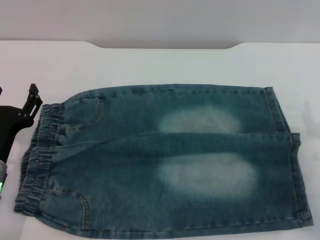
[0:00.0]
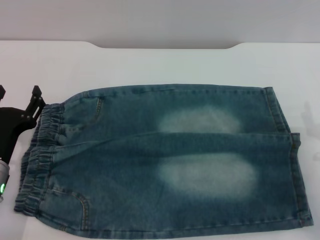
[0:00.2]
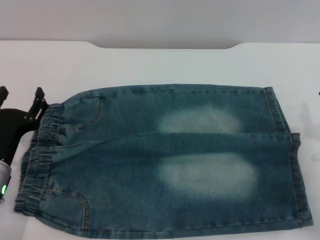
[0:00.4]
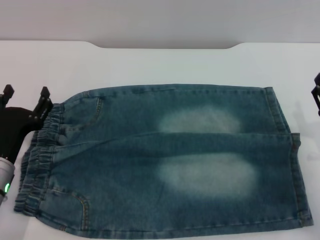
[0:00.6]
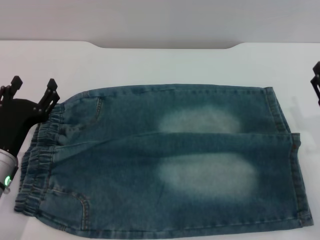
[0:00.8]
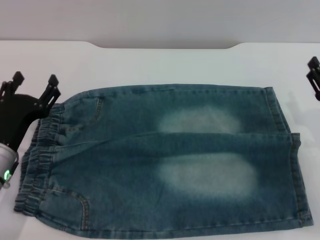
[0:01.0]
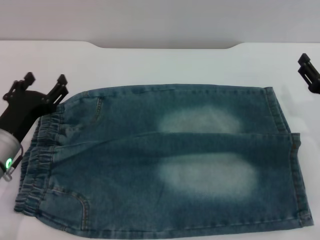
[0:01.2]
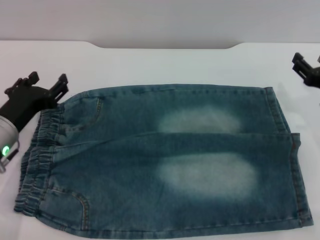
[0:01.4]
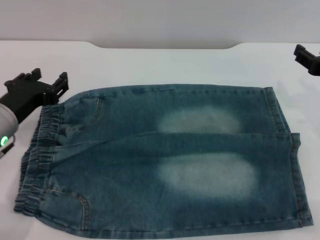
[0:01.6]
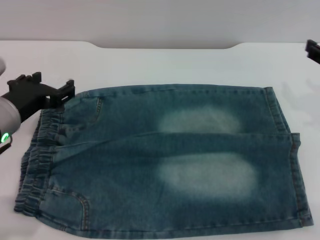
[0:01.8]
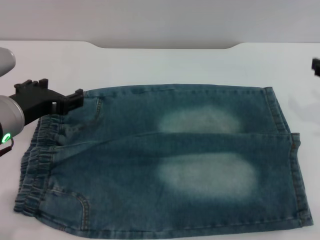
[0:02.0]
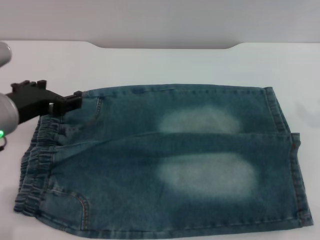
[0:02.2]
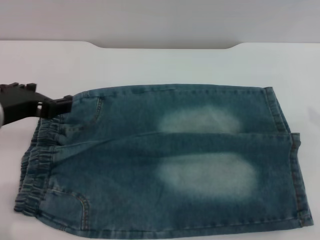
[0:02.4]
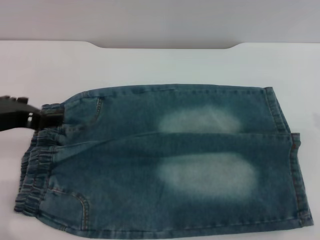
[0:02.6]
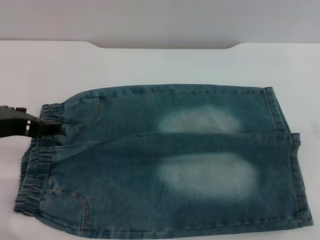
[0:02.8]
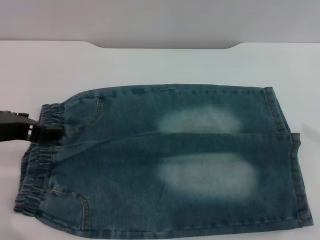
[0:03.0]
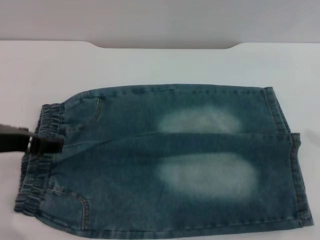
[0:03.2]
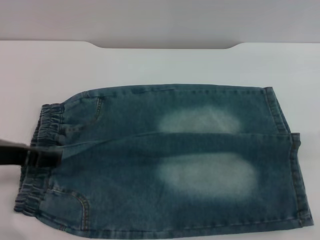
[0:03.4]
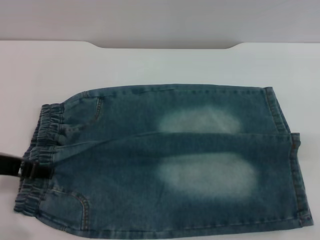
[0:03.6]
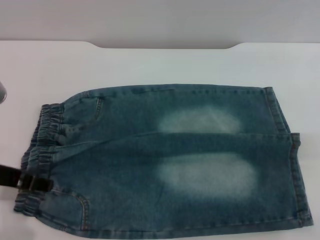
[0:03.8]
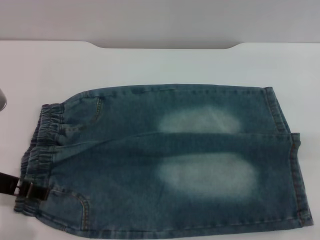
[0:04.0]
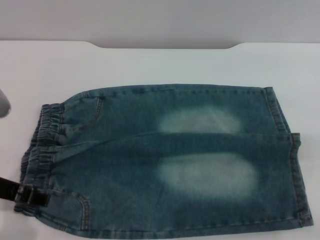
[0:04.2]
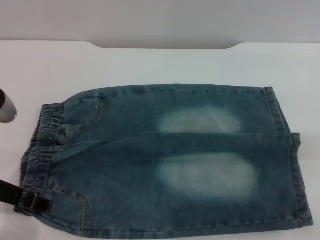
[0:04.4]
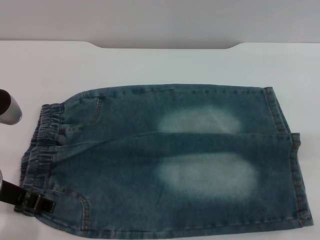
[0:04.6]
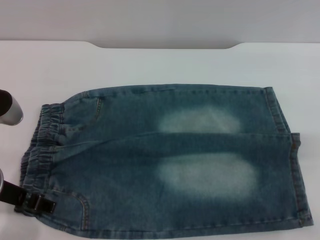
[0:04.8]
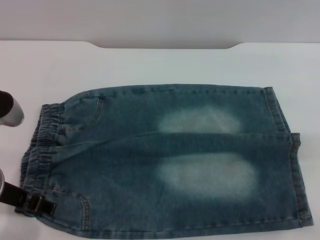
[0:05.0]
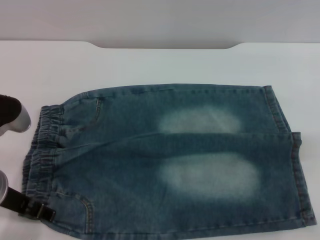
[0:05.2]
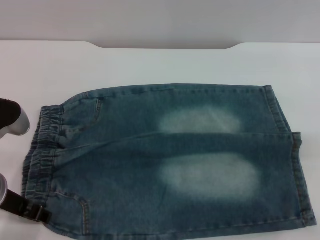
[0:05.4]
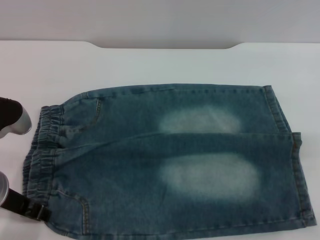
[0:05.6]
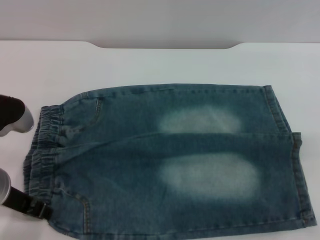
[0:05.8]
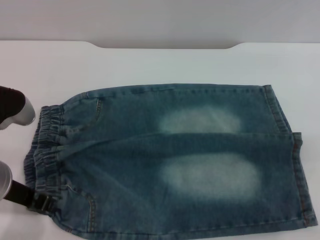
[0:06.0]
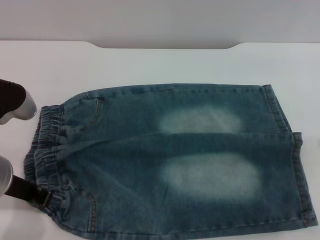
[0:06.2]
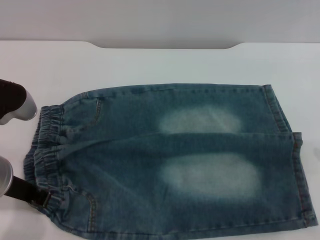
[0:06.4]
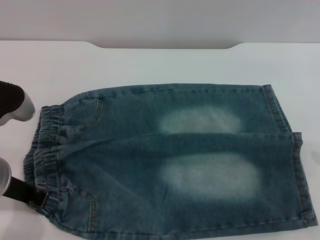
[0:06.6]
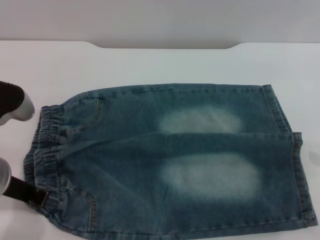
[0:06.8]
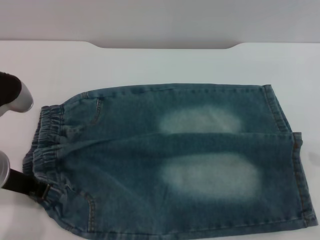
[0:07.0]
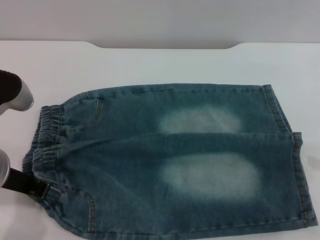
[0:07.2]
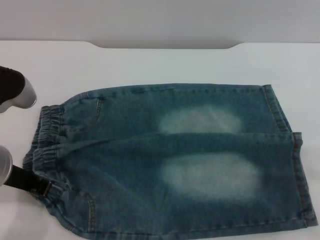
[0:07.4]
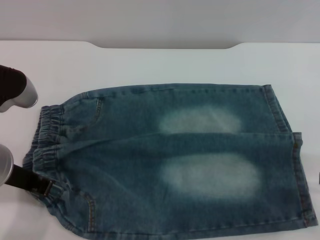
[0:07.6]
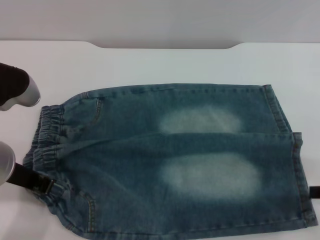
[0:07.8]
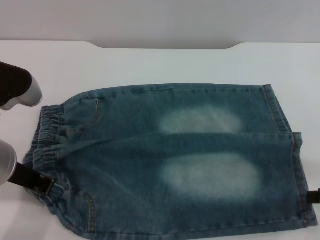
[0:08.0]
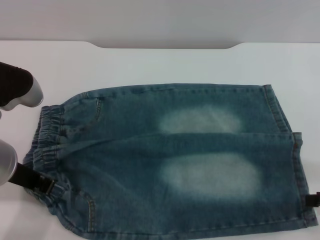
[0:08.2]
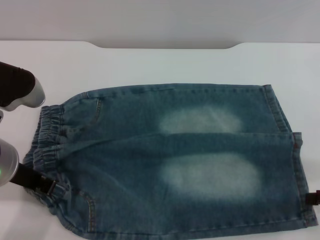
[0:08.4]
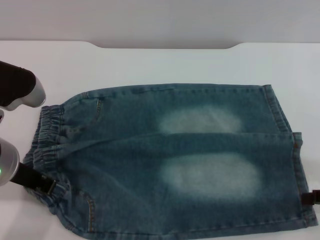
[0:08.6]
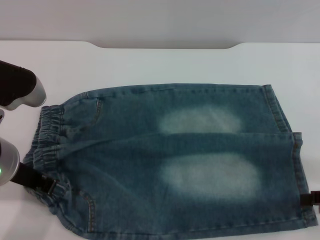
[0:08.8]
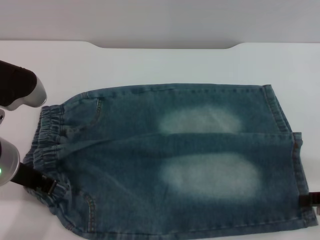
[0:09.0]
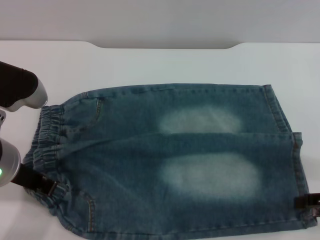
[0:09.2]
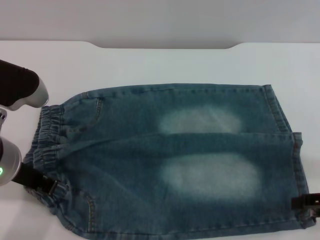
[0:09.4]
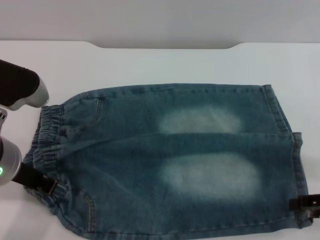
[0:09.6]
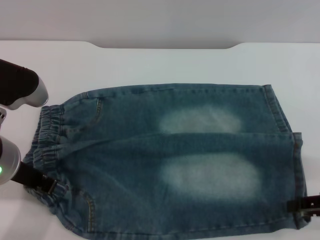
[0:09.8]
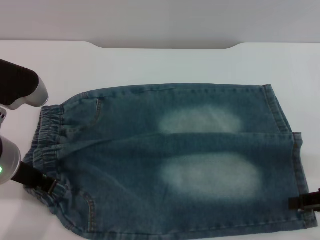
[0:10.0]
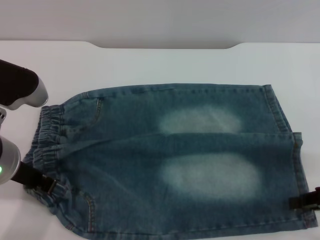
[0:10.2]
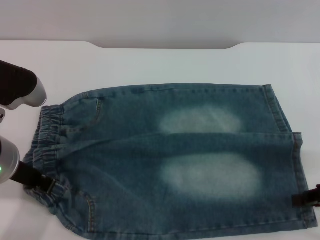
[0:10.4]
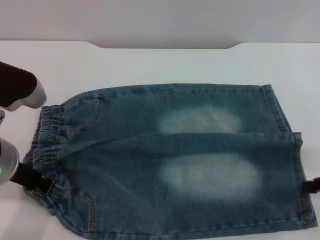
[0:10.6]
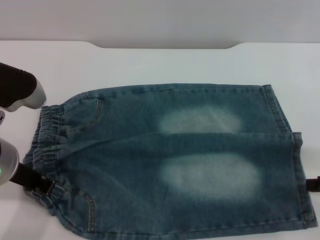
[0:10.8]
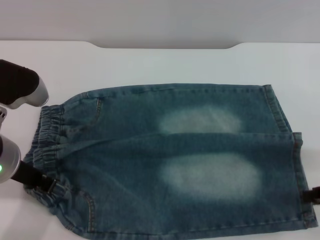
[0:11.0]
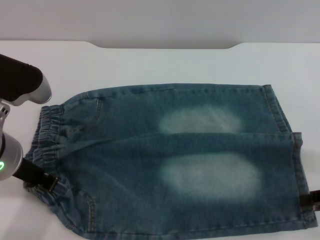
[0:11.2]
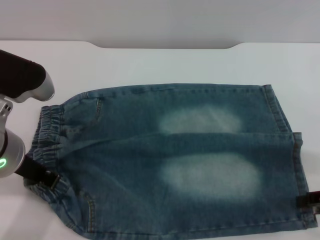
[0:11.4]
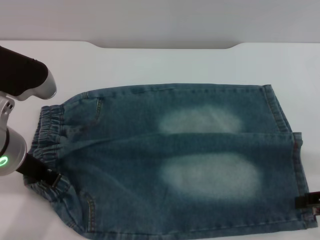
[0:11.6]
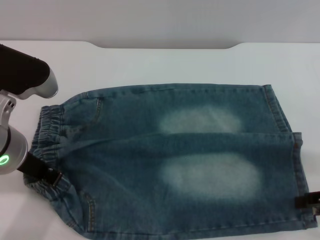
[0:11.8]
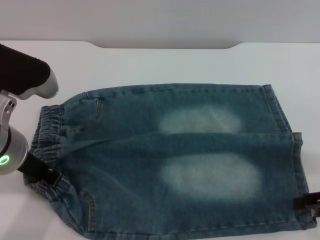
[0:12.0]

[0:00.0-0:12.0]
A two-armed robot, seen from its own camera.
0:00.0 to 0:01.6: The right gripper goes about 15 cm upward and forward. The left gripper moves upward, roughly 10 cm.
0:01.6 to 0:03.0: The right gripper shifts about 15 cm upward, backward and to the right. The left gripper heads upward, covering some 10 cm.
0:04.4 to 0:06.0: The left gripper closes up.
0:06.0 to 0:07.6: The left gripper closes.
0:07.6 to 0:09.0: There are only small adjustments of the grippers.

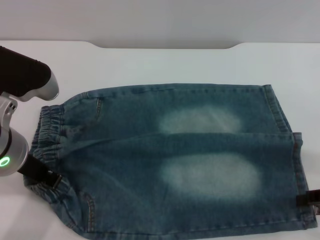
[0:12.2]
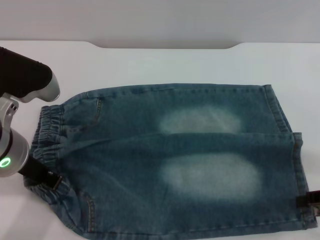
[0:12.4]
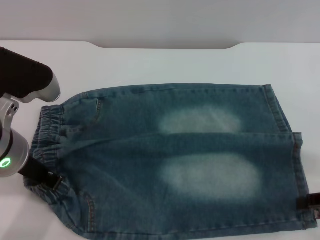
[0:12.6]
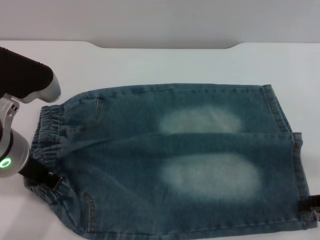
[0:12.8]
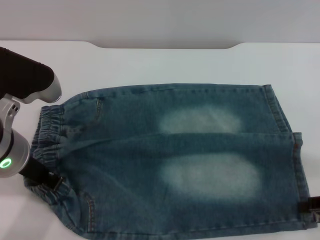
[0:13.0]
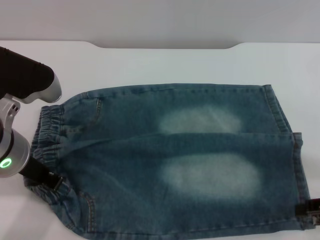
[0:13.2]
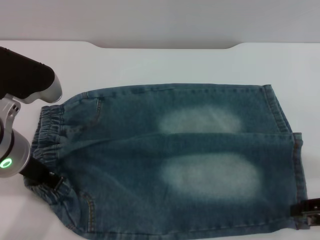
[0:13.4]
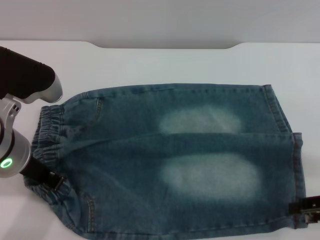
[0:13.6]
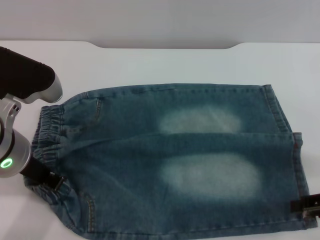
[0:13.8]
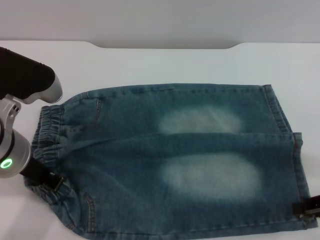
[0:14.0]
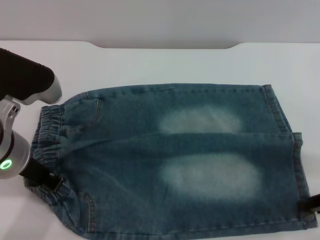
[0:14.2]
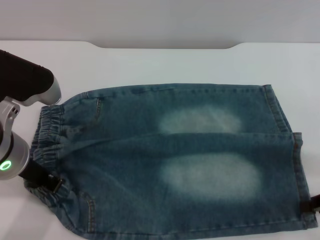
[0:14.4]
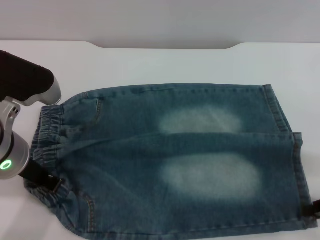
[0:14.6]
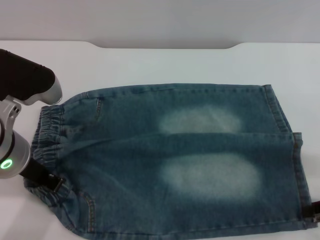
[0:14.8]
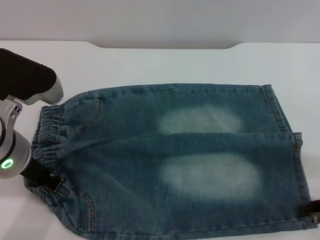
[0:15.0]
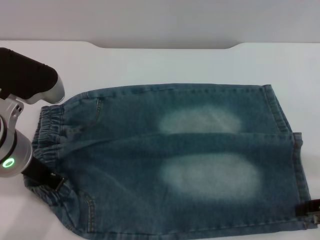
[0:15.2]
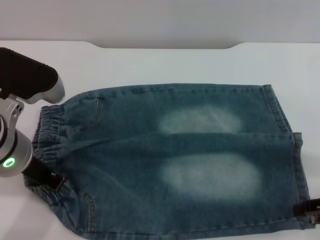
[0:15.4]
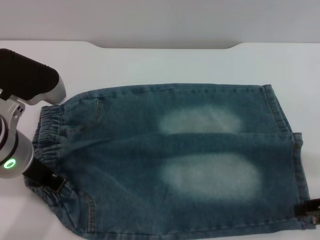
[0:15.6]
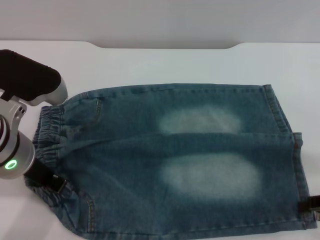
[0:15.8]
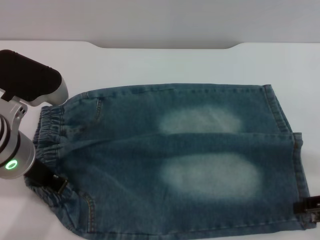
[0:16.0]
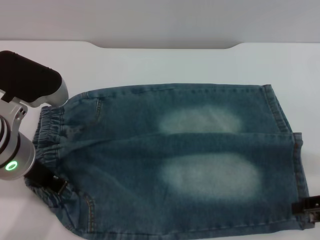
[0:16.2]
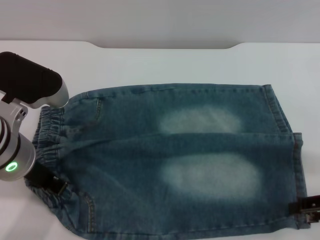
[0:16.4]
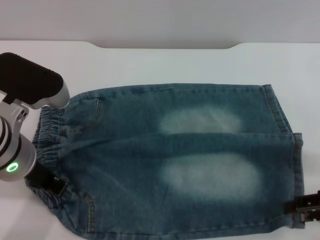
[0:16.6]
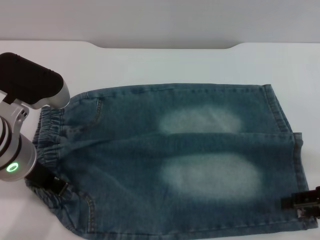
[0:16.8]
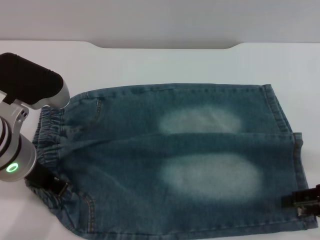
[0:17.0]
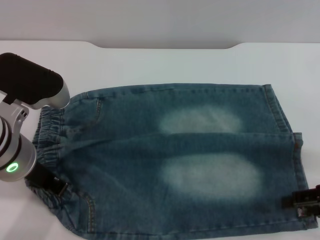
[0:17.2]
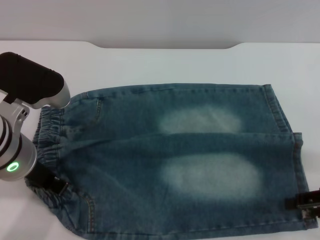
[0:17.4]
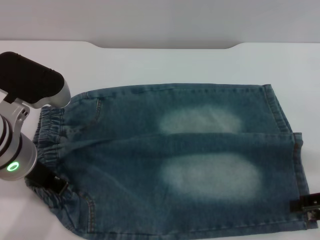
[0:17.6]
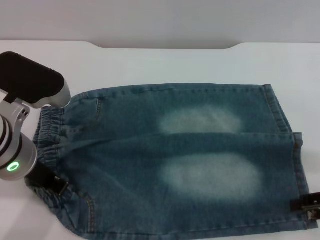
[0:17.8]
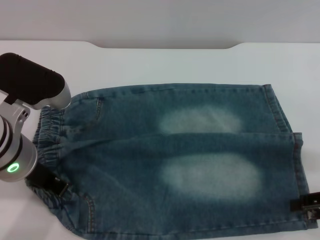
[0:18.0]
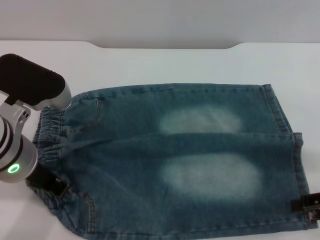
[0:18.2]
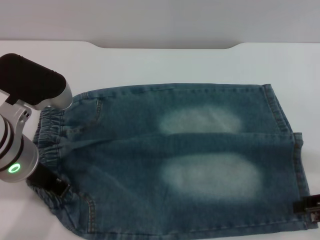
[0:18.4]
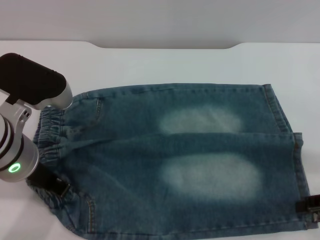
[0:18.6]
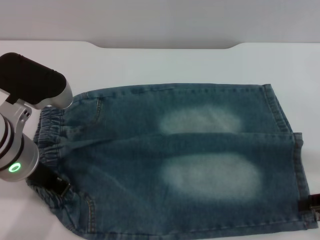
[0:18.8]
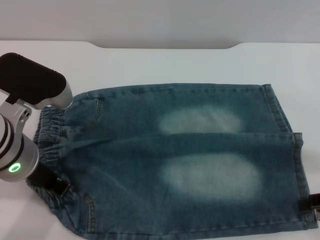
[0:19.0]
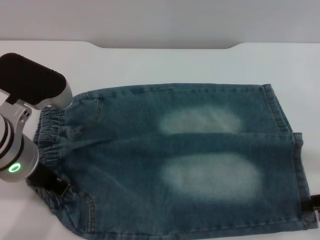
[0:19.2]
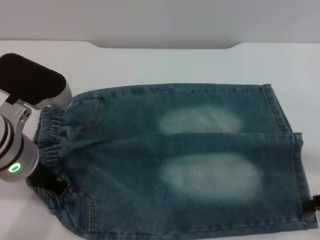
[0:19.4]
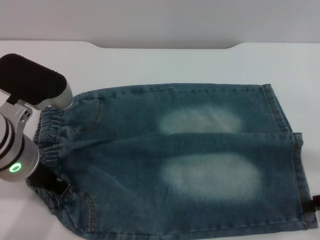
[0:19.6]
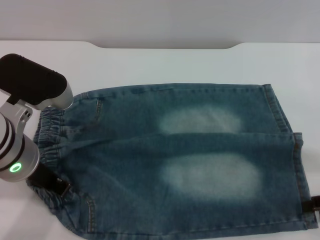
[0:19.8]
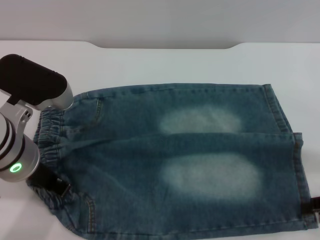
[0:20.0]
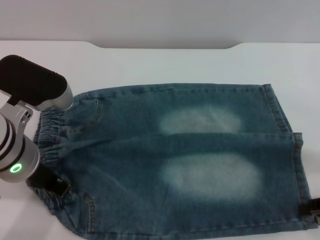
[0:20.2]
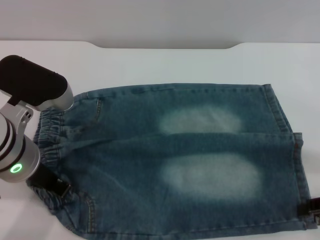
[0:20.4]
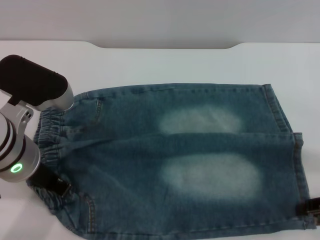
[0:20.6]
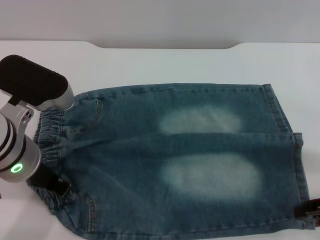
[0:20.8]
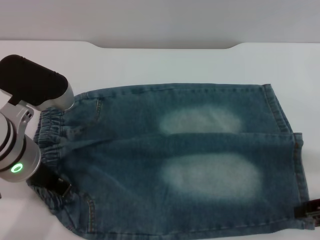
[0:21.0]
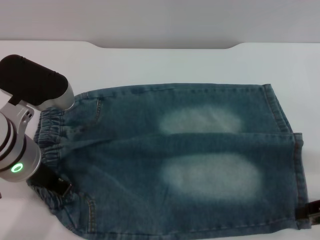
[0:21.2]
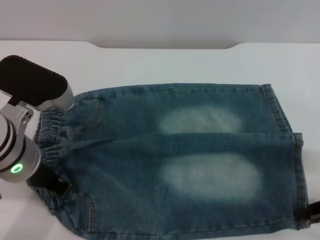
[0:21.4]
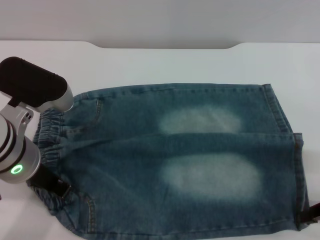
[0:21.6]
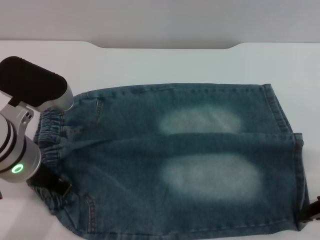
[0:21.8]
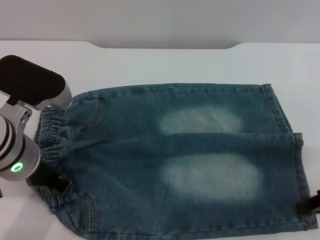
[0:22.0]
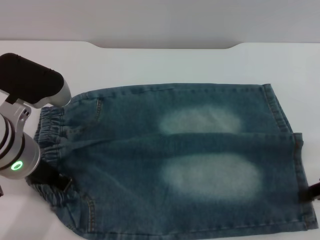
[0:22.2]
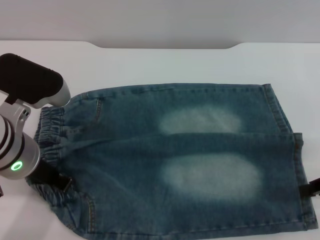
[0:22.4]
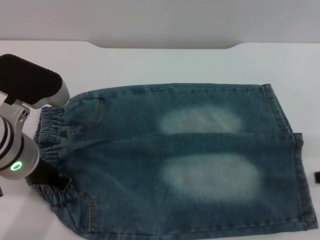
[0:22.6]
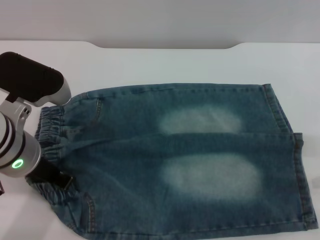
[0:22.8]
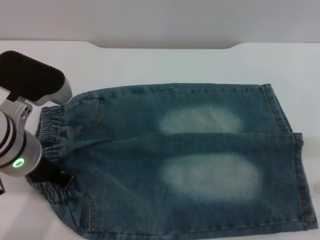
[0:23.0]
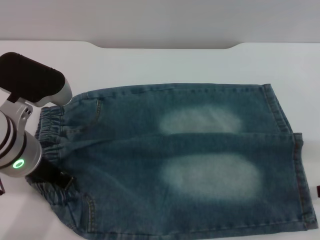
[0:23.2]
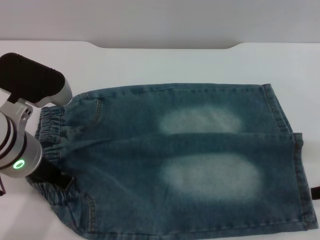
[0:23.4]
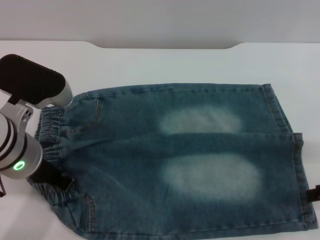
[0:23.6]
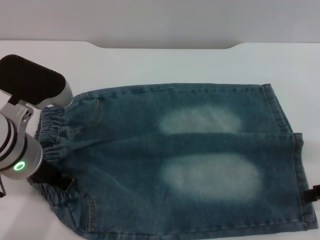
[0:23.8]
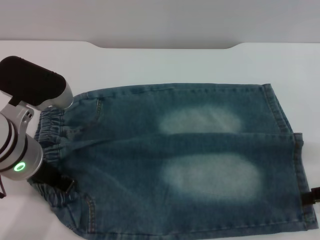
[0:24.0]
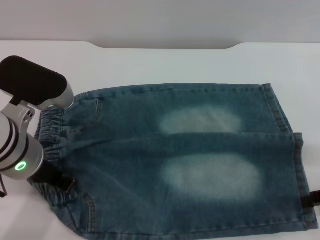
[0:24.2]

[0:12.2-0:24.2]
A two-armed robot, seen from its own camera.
0:12.2 to 0:13.8: The grippers stay close to where they were, moving slightly.
0:15.2 to 0:16.6: Neither gripper changes place.
0:16.6 to 0:18.2: The two grippers keep their place.
0:18.2 to 0:21.2: The two grippers keep their place.
0:21.2 to 0:22.6: The right gripper closes.
